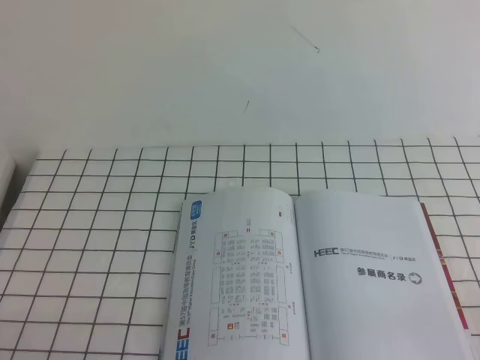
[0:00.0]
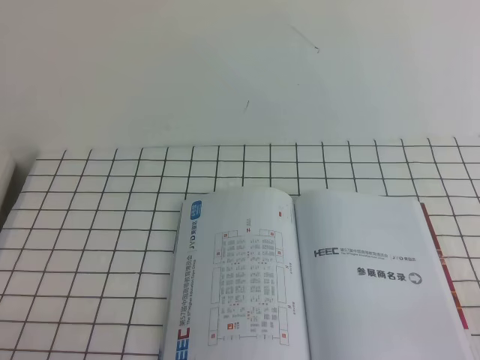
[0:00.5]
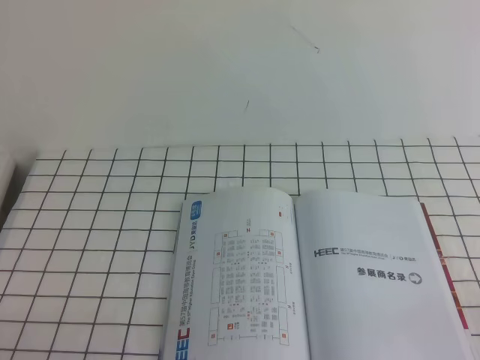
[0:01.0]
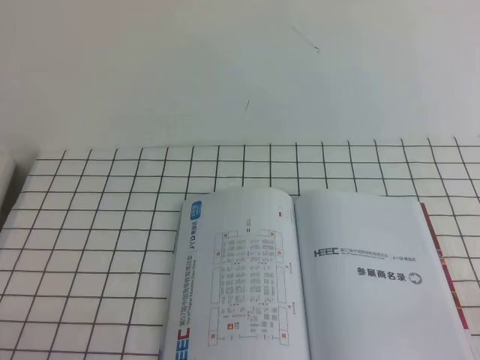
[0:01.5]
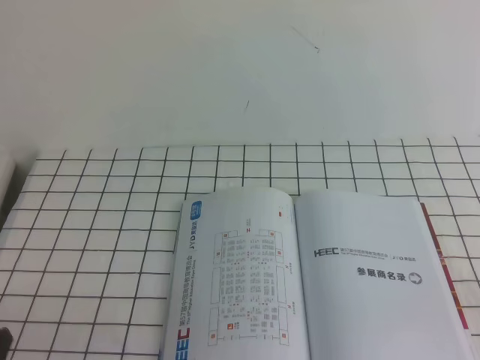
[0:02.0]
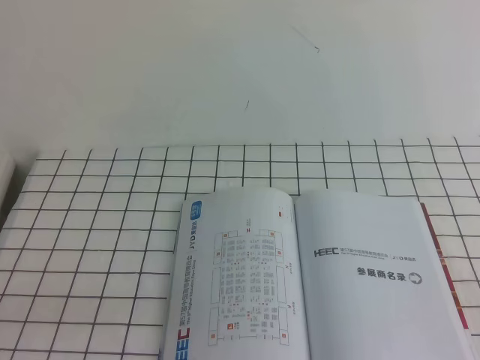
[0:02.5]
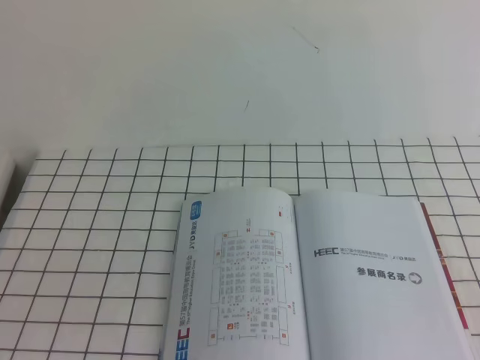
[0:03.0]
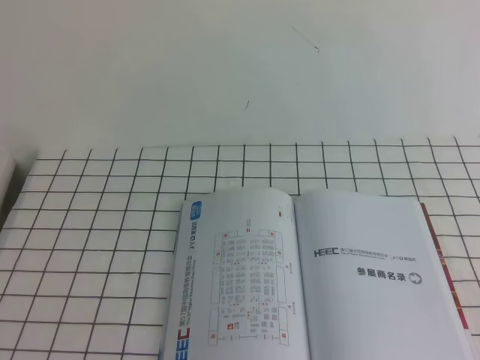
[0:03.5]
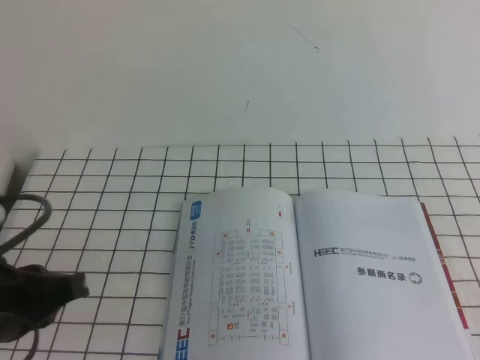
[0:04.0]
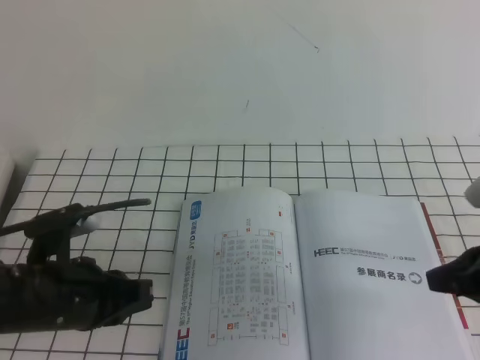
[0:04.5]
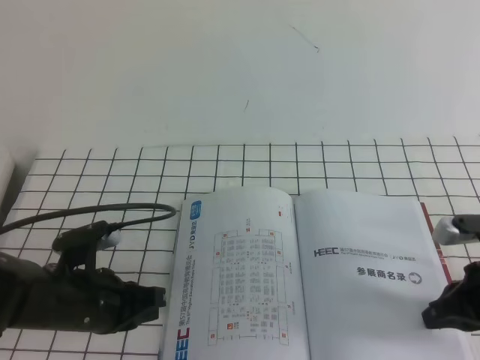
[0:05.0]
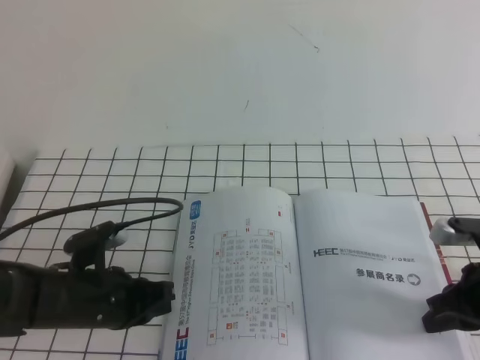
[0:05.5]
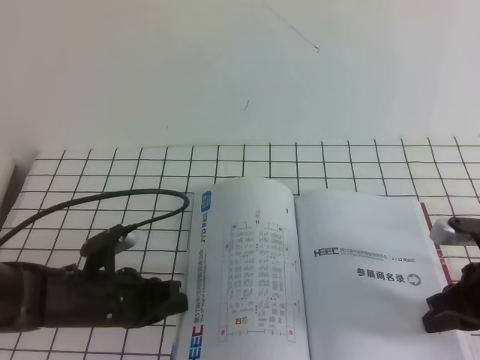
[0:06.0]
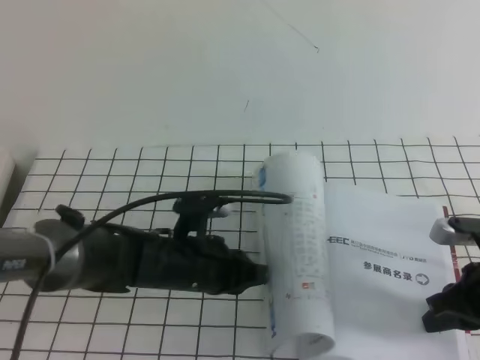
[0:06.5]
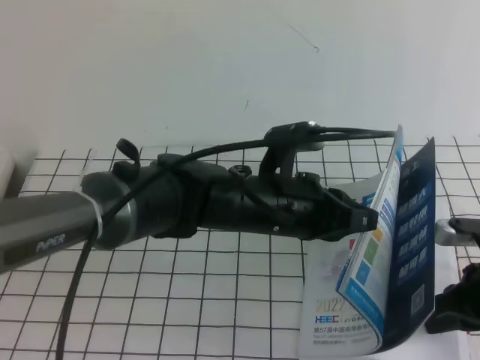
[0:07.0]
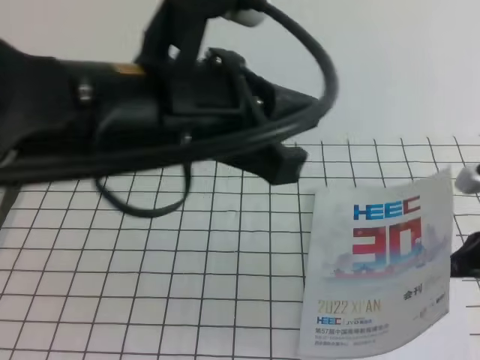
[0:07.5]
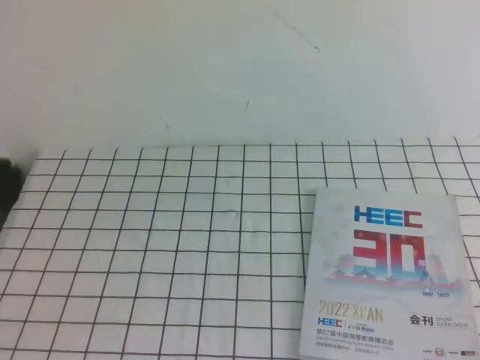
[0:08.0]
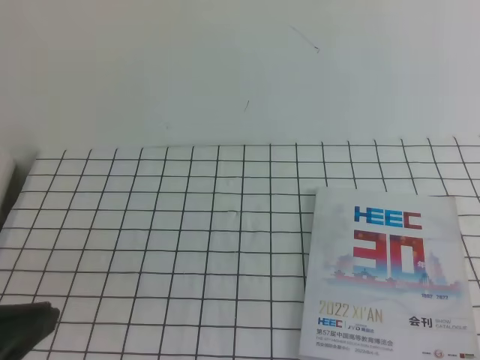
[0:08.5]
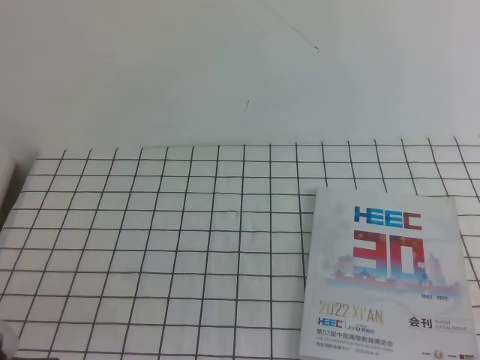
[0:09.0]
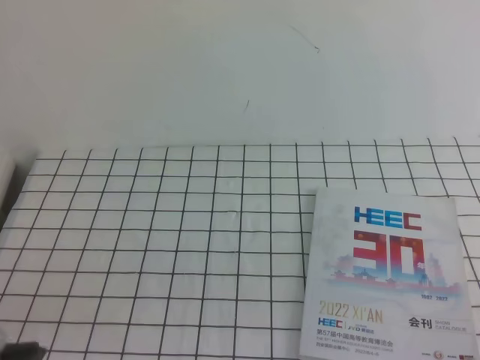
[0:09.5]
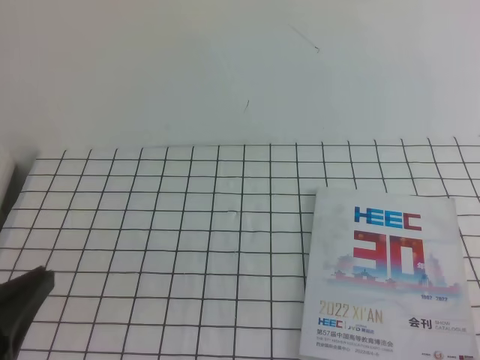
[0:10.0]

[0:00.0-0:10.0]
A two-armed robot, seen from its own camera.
Task of the whole recording: on the white tablecloth, hold the book with one hand and close it with the other.
0:02.0 to 0:04.0: The left gripper travels forward and upward by roughly 15 cm.
0:04.0 to 0:06.0: The grippers both shift downward and forward by some 20 cm.
0:06.0 to 0:08.0: Both grippers move upward and backward, roughly 35 cm.
0:08.0 to 0:10.0: The left gripper heads downward, covering roughly 15 cm. Meanwhile the right gripper goes approximately 15 cm downward and backward.

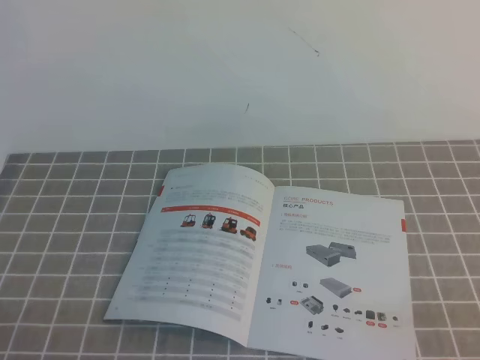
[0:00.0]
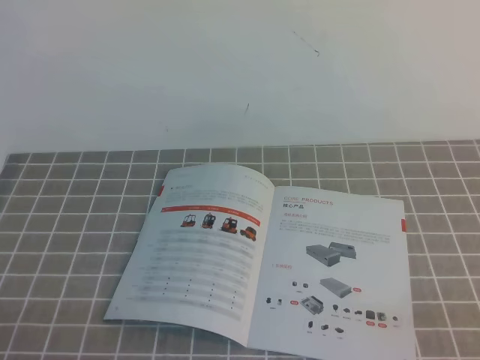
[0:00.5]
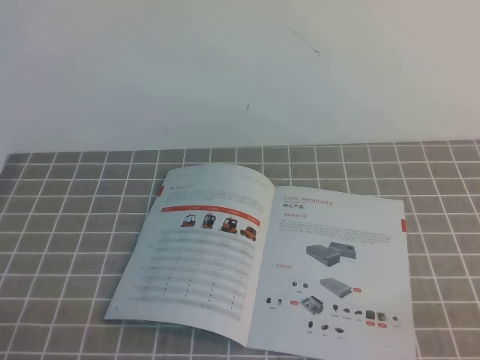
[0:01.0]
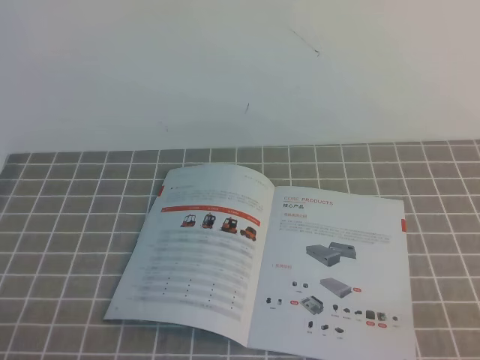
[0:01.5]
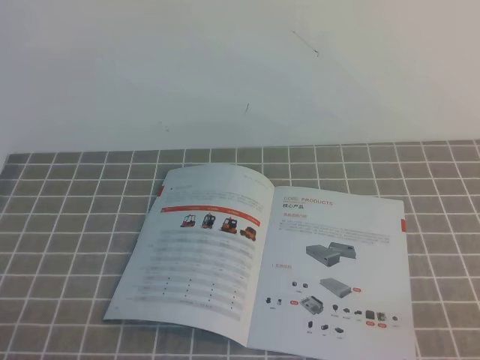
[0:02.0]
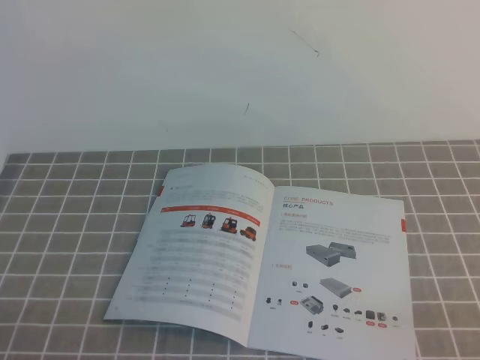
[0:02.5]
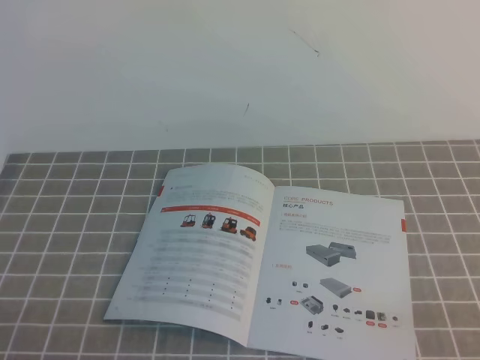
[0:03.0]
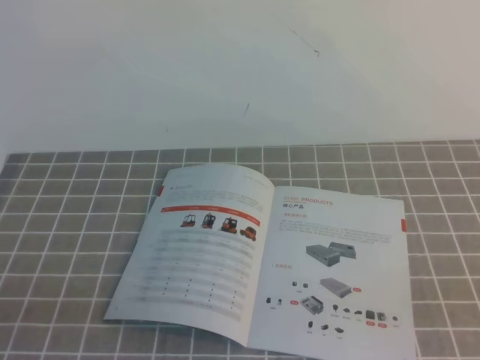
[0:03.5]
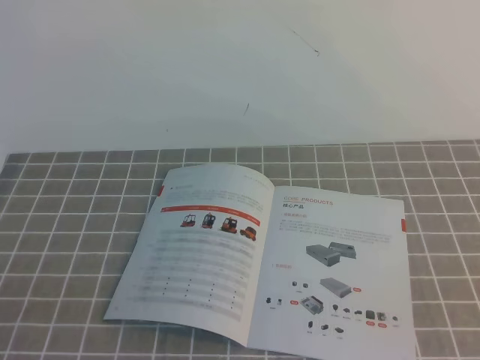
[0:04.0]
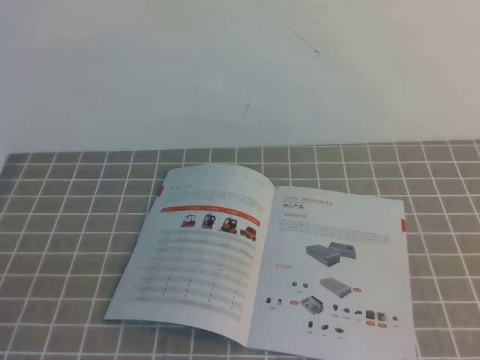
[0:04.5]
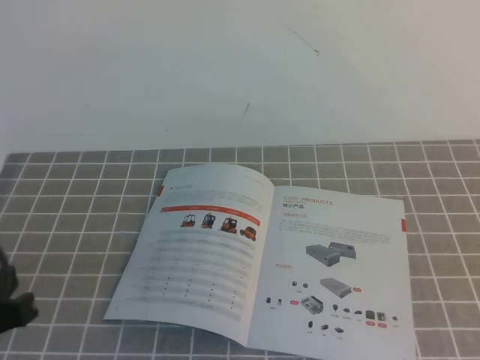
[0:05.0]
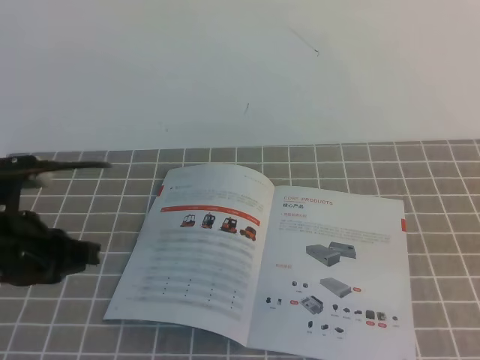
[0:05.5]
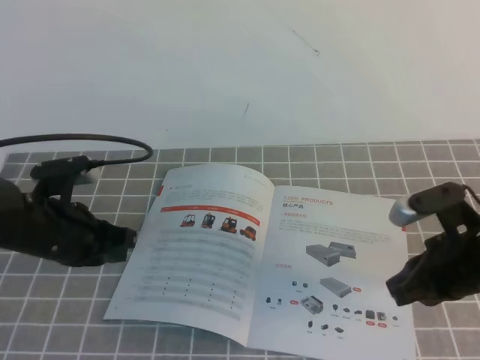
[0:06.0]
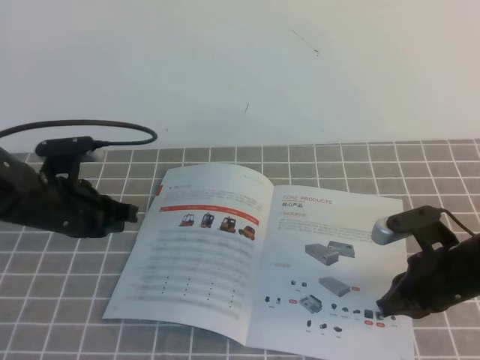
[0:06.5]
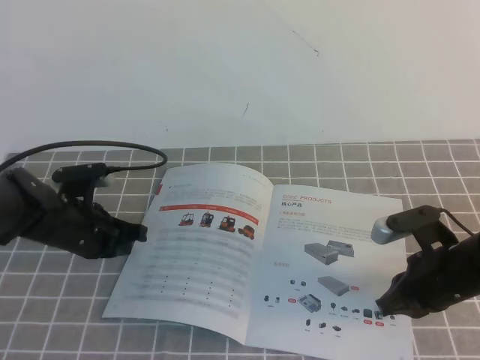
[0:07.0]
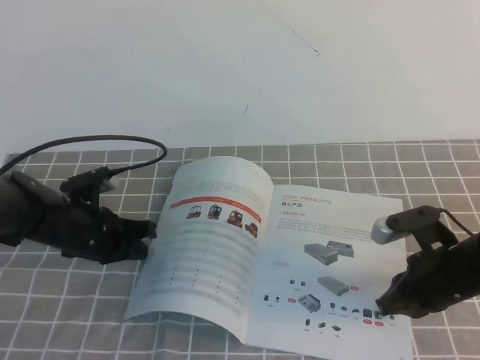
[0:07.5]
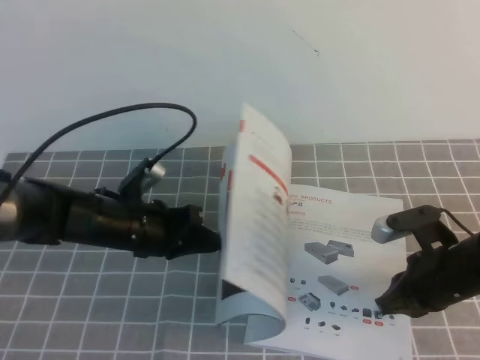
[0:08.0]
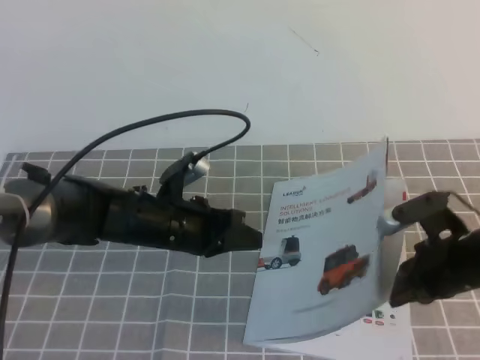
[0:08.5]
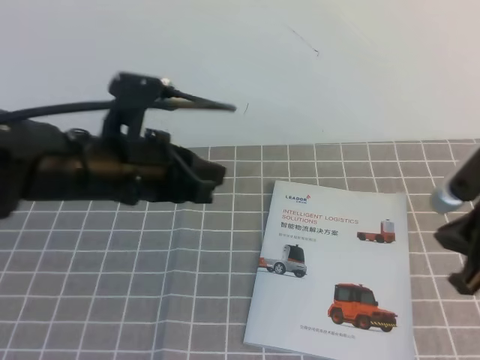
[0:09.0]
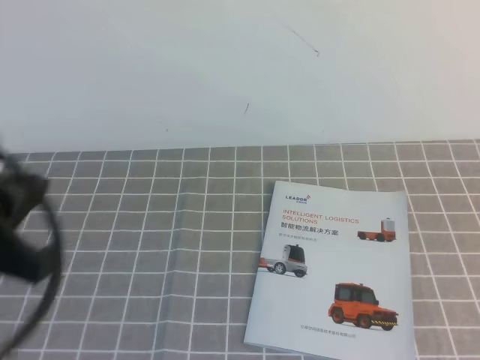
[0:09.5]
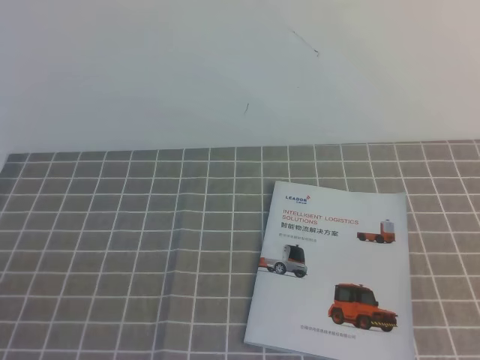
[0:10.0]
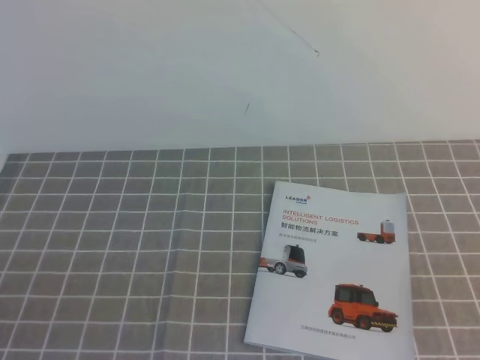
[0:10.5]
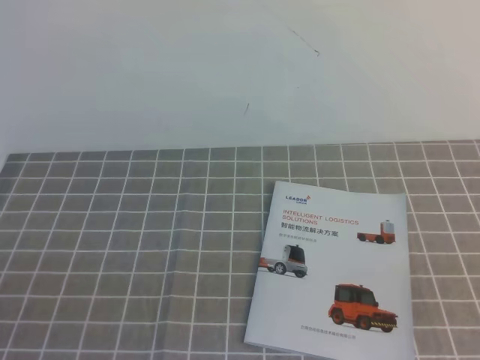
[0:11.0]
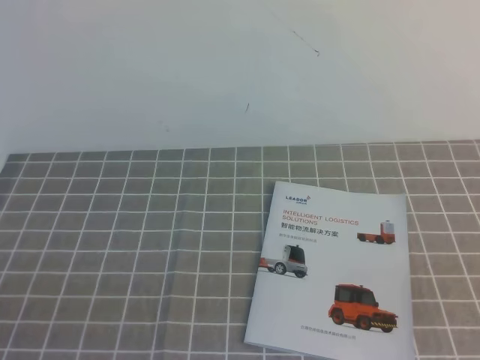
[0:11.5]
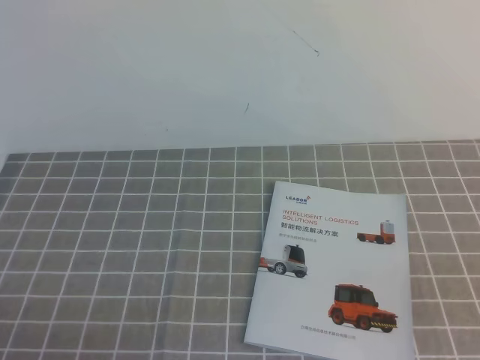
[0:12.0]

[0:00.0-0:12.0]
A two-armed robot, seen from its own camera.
Task of the whole recording: on the grey tablecloth, hold the book with one hand and close it with the other.
0:00.0 to 0:02.0: Neither gripper changes place.
0:04.0 to 0:06.0: Both grippers travel together forward, some 25 cm.
0:06.0 to 0:08.0: The right gripper shifts some 5 cm downward. The left gripper is displaced downward, to the right and forward by approximately 10 cm.
0:08.0 to 0:10.0: The right gripper heads backward, upward and to the right, covering approximately 30 cm. Meanwhile the left gripper goes roughly 30 cm backward and upward.

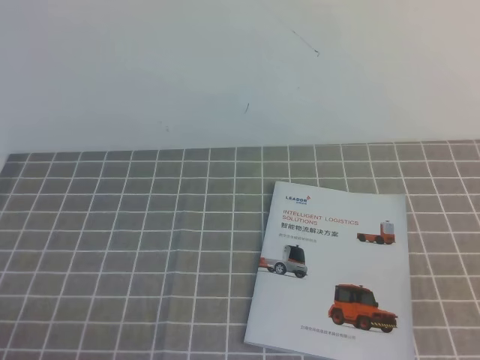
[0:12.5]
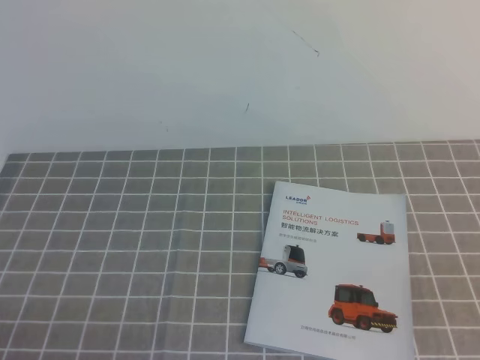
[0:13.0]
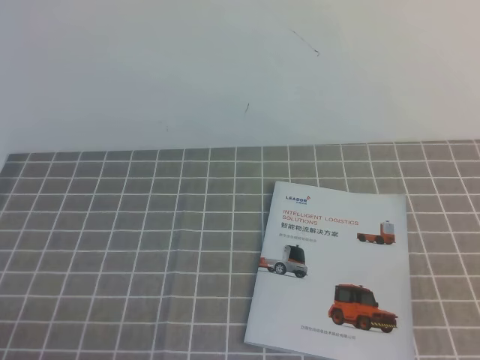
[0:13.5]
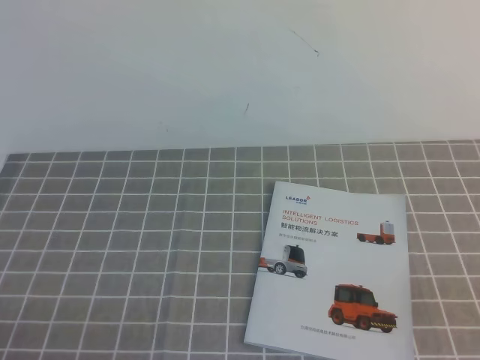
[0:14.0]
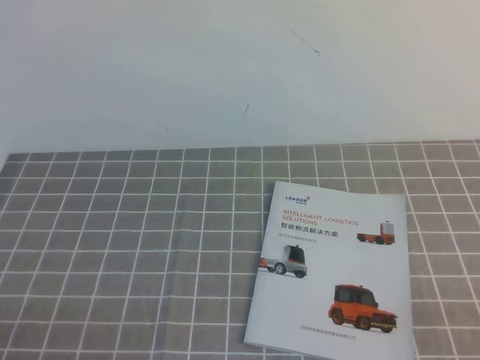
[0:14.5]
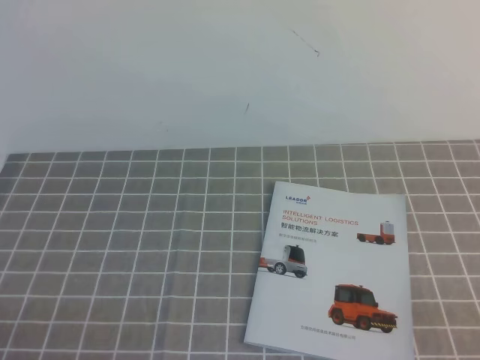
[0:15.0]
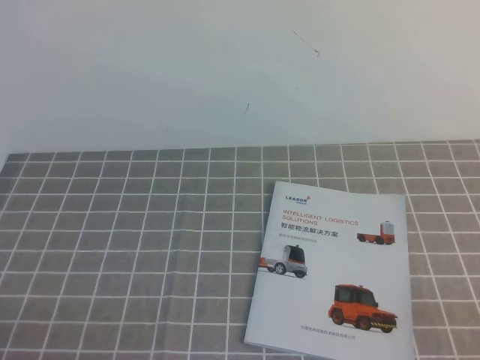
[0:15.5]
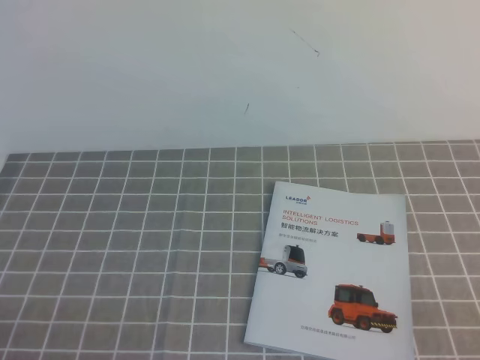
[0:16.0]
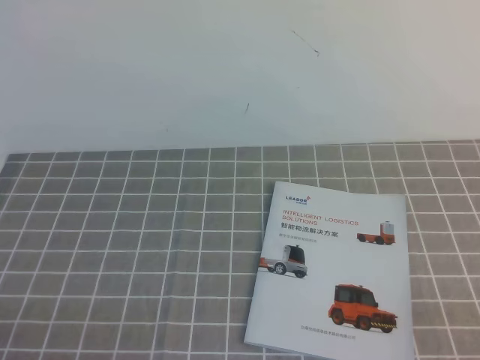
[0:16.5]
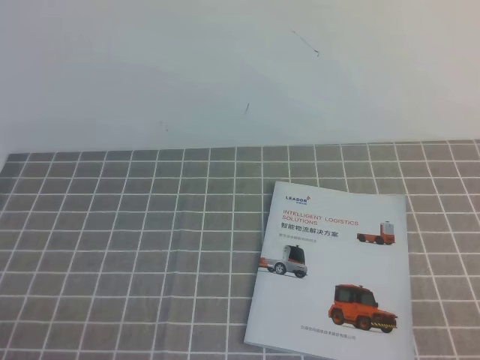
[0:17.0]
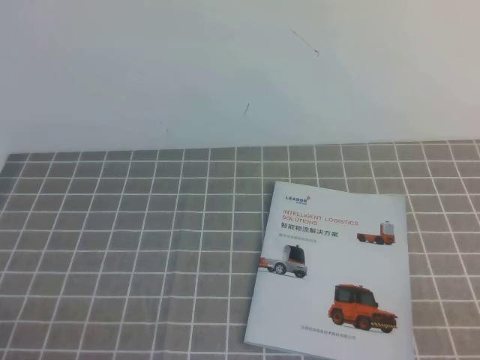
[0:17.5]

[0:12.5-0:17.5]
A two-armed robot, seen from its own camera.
Task of the whole recording: on the grey tablecloth, hold the book with one hand and close it with the other.
0:15.0 to 0:17.5: Both grippers stay about where they are.
